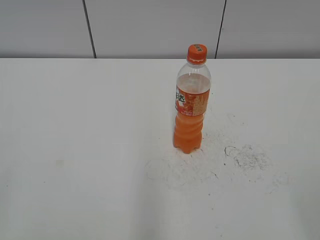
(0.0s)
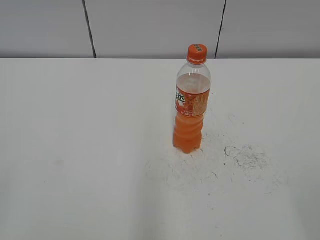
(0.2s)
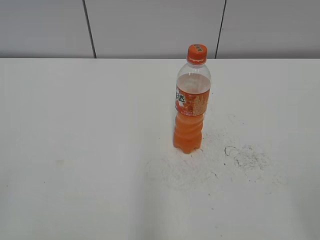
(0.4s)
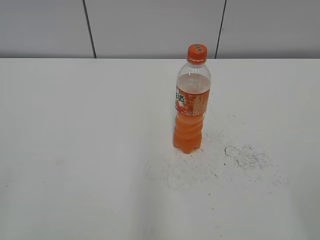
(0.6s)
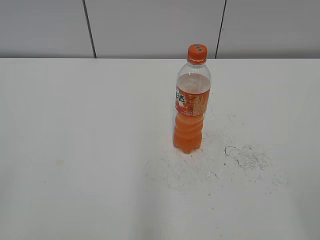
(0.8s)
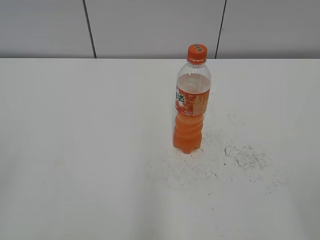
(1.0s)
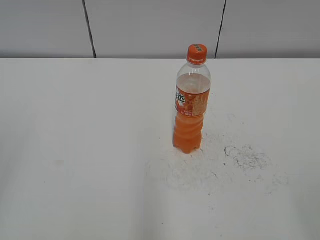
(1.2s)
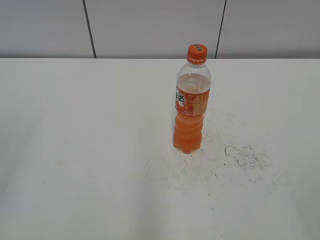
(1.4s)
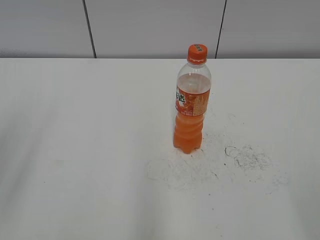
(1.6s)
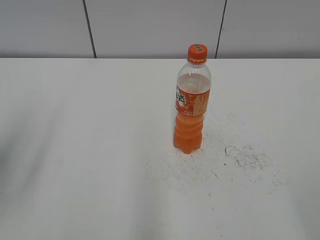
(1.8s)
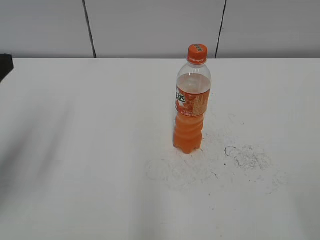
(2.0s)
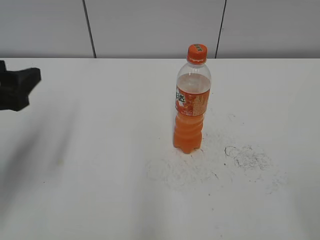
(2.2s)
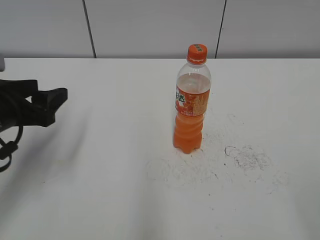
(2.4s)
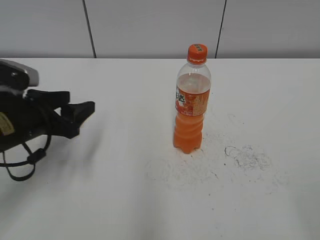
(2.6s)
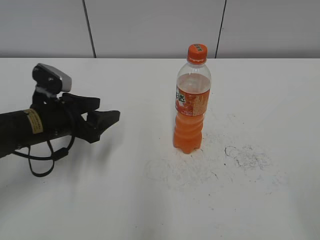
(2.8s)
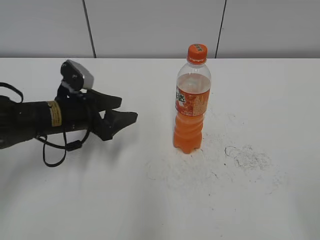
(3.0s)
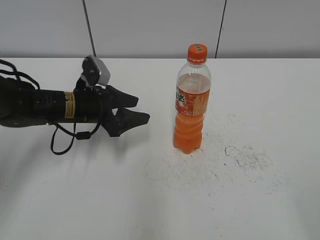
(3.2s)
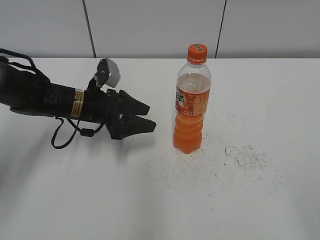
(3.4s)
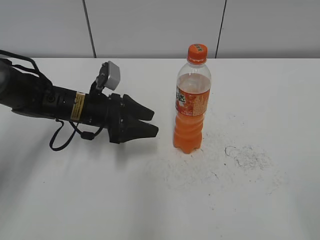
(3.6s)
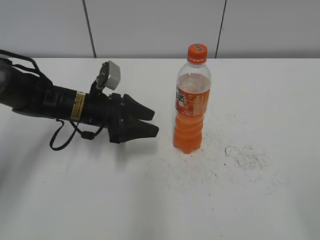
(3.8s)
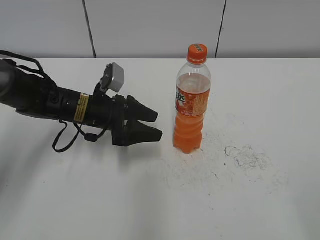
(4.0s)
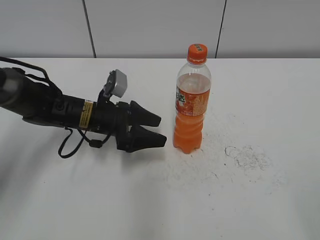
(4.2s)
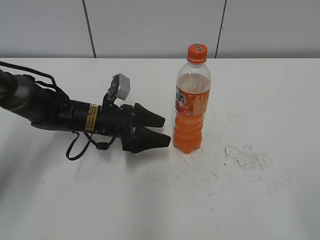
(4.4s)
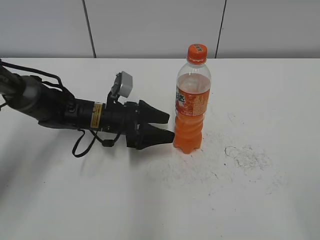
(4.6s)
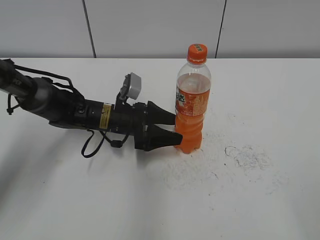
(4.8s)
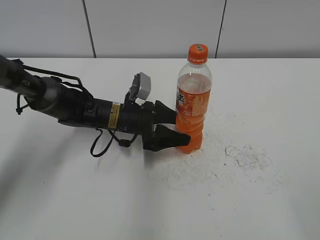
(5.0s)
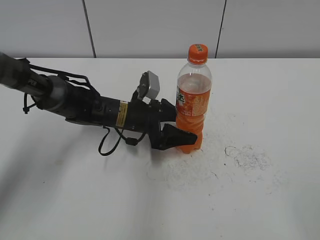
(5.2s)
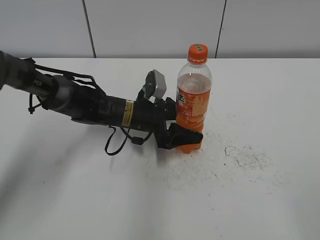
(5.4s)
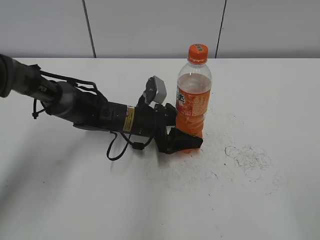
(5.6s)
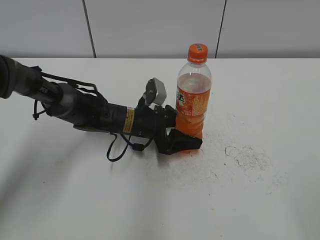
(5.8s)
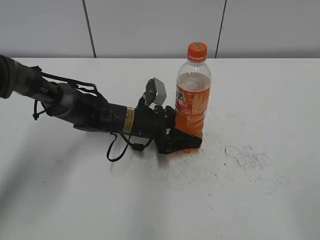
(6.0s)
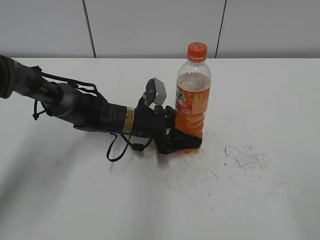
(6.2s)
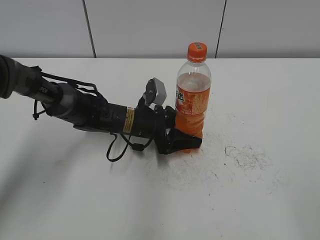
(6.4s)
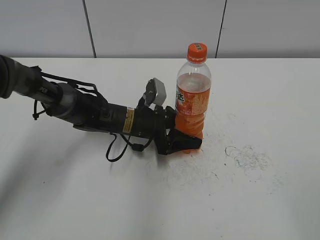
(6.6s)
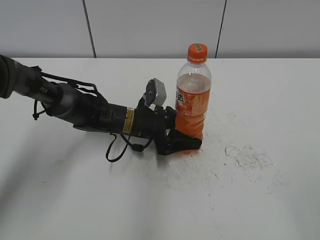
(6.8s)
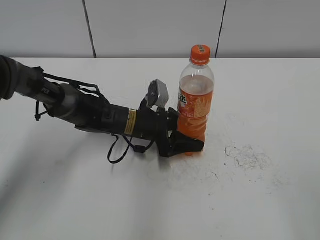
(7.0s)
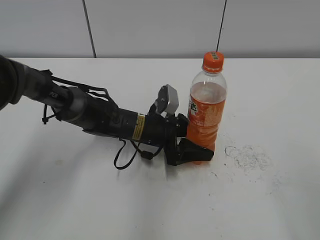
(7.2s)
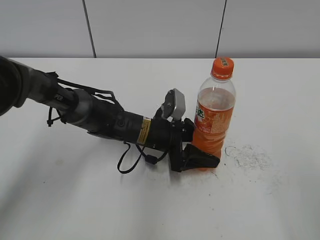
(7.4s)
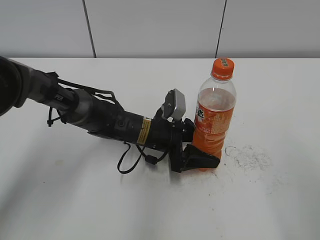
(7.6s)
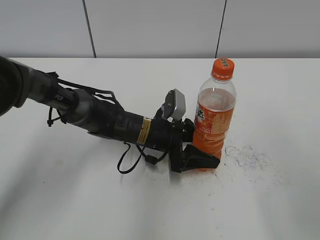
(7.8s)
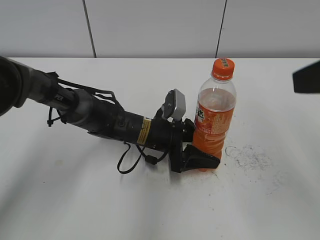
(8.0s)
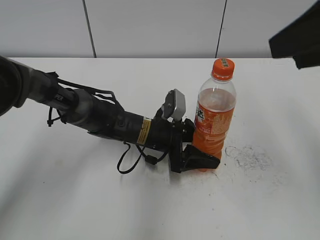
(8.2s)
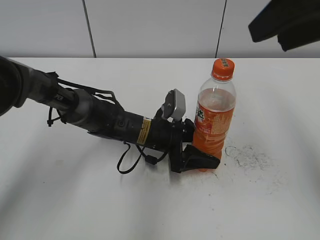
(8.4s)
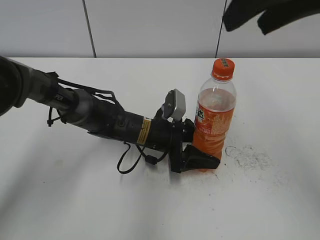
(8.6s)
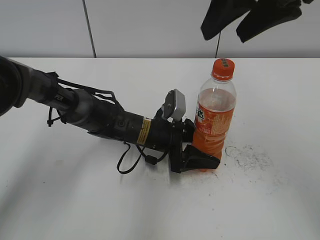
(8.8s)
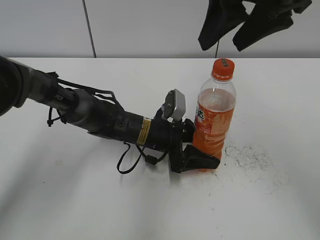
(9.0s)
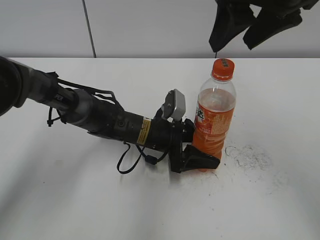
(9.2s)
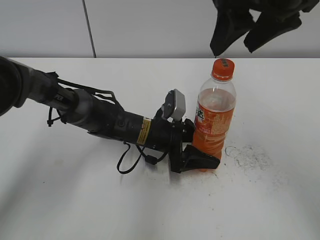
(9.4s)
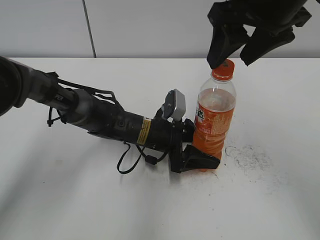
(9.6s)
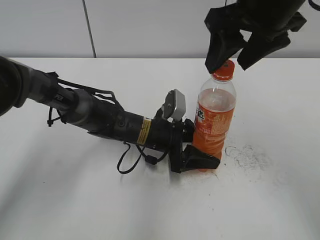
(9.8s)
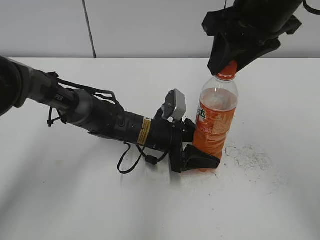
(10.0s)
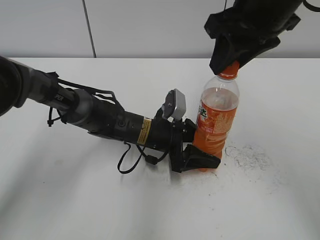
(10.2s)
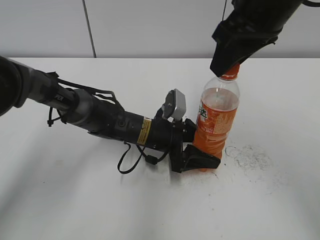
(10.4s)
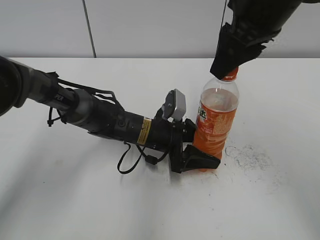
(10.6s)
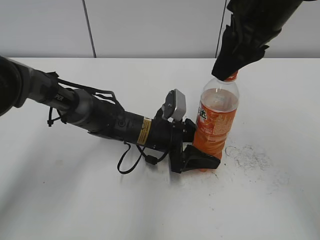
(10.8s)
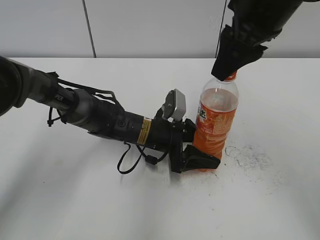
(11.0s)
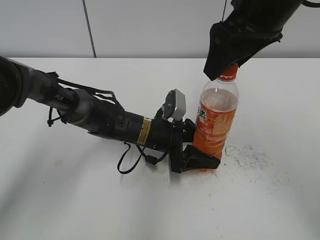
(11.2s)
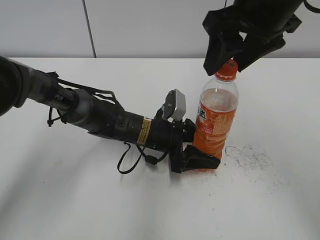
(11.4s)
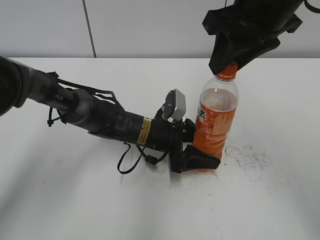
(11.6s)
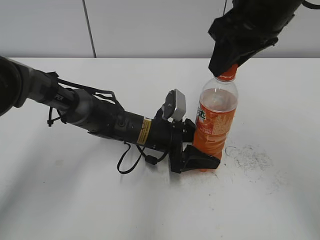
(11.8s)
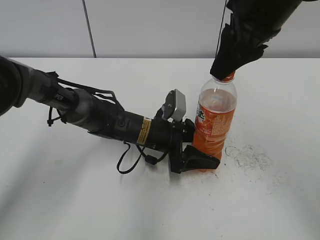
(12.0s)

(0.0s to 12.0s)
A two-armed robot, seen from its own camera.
Step, 0.0s - 6.6s: Grab the Mirinda with the left hand.
Step, 6.8s - 7.4s: Move the Mirinda to the right with the left hand.
1.6s - 3.0s: The left gripper goes about 30 cm downward, forward and to the right.
3.0s - 4.4s: The left gripper heads to the right, covering approximately 5 cm, and opens.
4.4s - 6.0s: The left gripper is displaced to the right by approximately 5 cm, and closes its fingers.
6.0s - 7.6s: The right gripper heads forward, covering about 5 cm.
7.6s - 9.0s: The right gripper heads forward and to the left, covering about 25 cm.
9.0s - 10.4s: The right gripper closes.
10.4s - 12.0s: The right gripper opens and closes again.

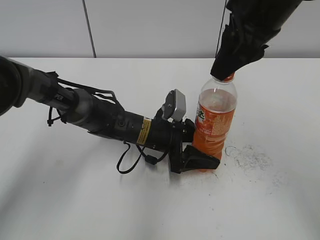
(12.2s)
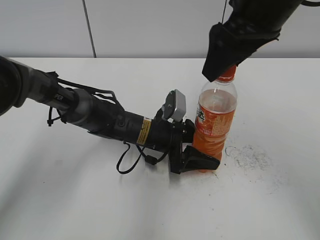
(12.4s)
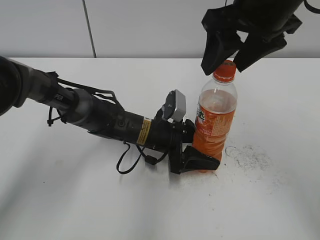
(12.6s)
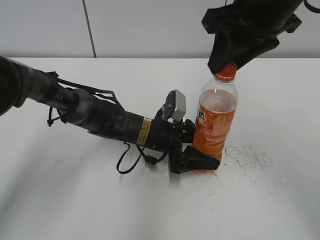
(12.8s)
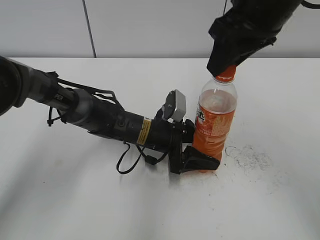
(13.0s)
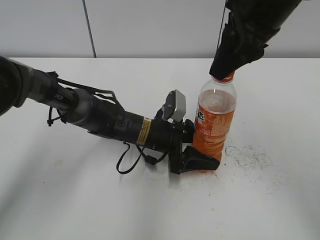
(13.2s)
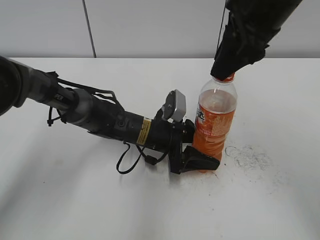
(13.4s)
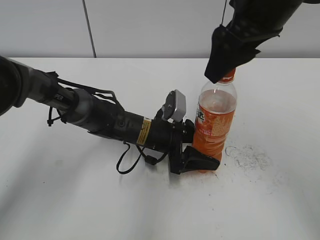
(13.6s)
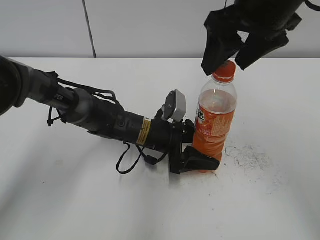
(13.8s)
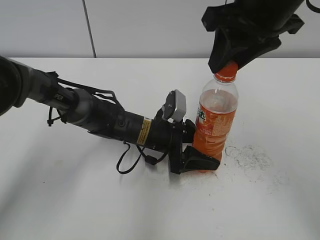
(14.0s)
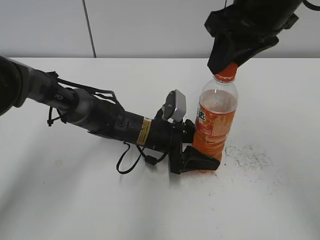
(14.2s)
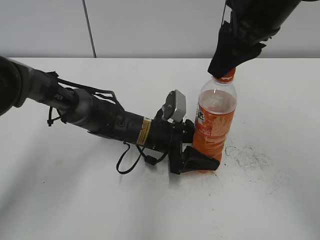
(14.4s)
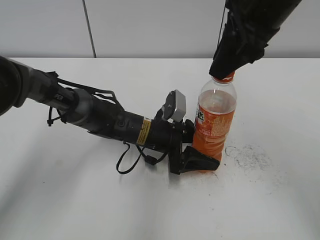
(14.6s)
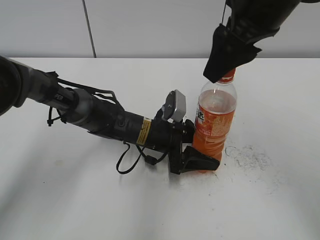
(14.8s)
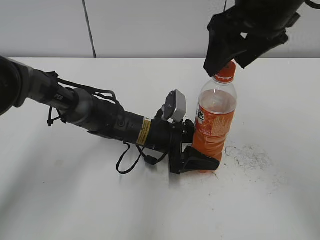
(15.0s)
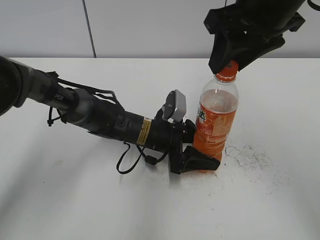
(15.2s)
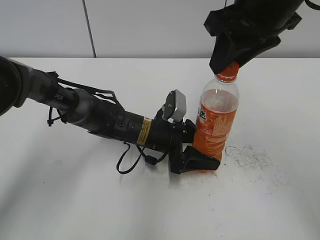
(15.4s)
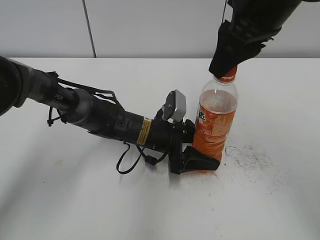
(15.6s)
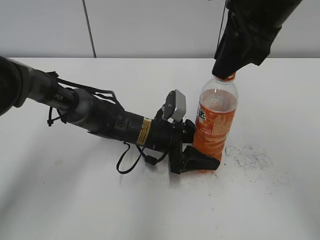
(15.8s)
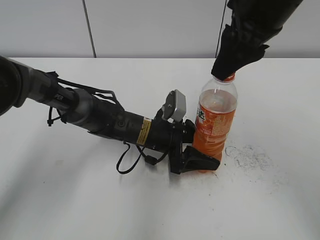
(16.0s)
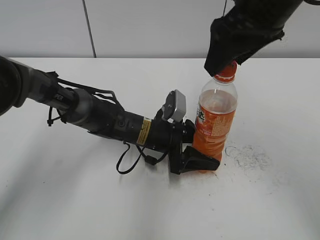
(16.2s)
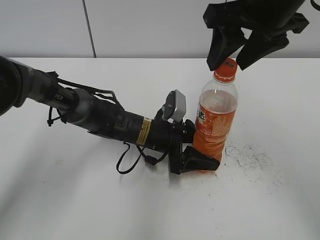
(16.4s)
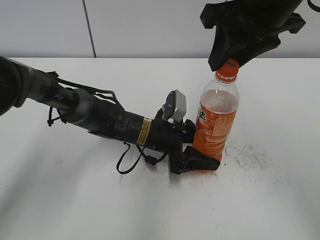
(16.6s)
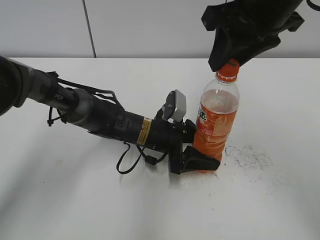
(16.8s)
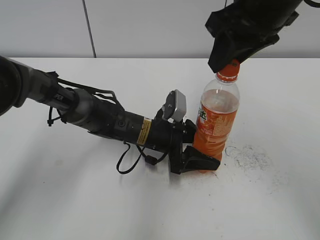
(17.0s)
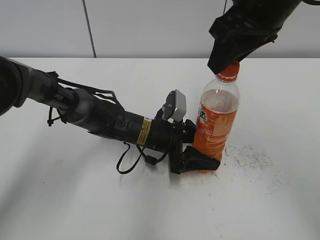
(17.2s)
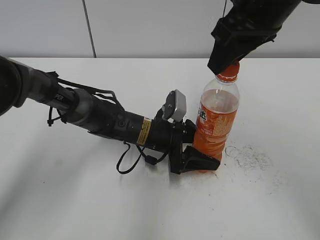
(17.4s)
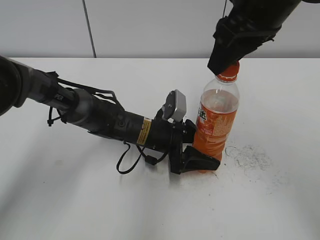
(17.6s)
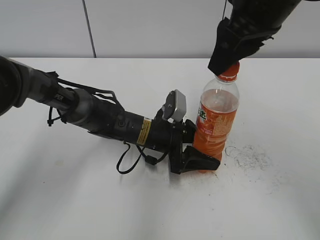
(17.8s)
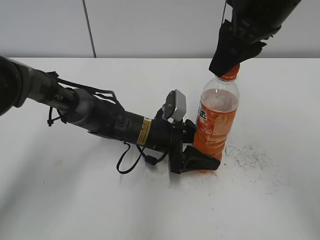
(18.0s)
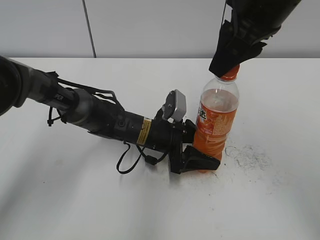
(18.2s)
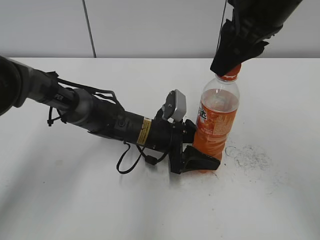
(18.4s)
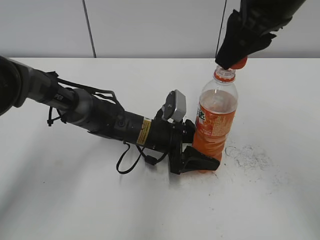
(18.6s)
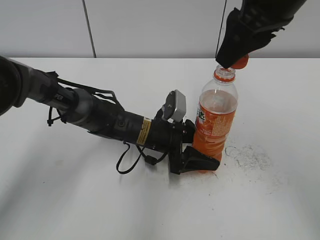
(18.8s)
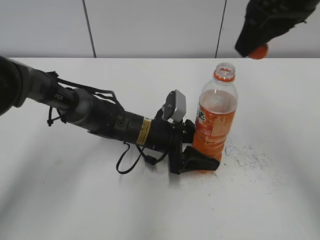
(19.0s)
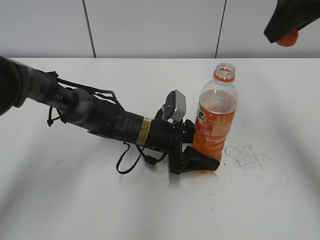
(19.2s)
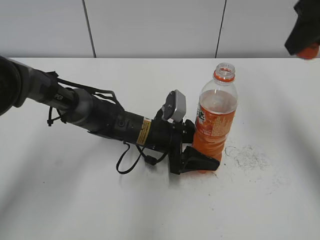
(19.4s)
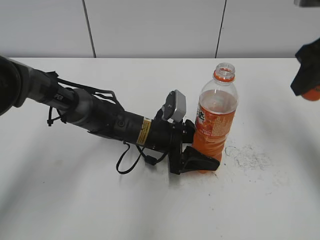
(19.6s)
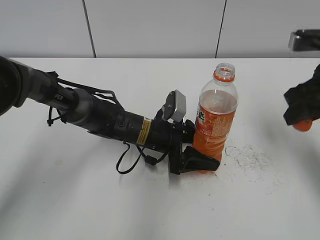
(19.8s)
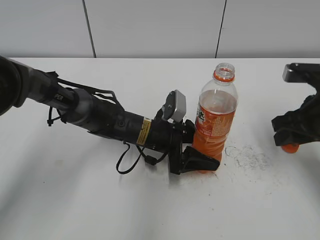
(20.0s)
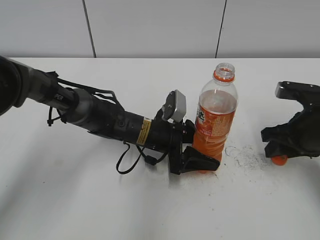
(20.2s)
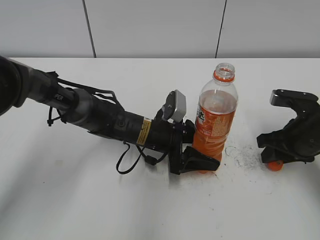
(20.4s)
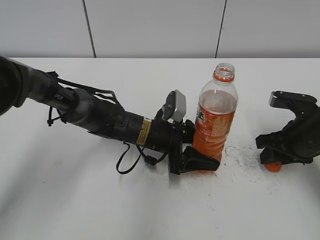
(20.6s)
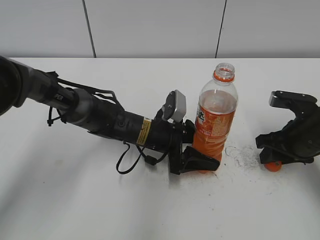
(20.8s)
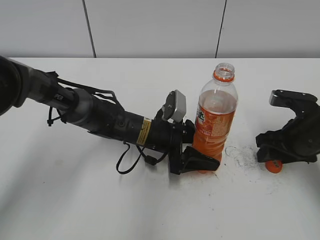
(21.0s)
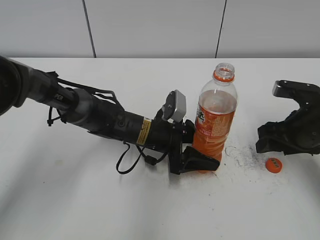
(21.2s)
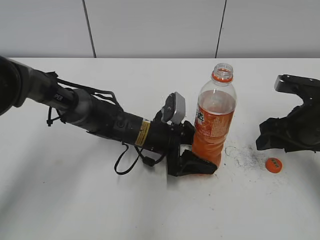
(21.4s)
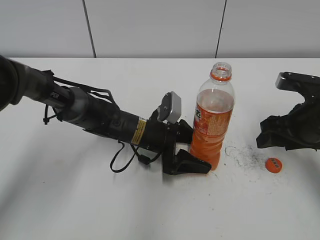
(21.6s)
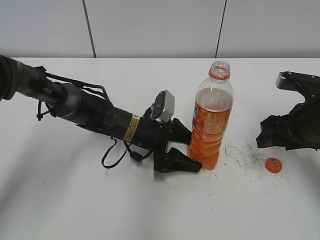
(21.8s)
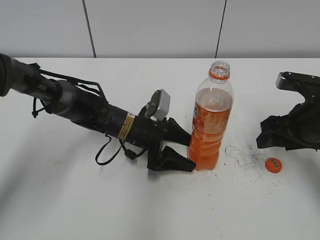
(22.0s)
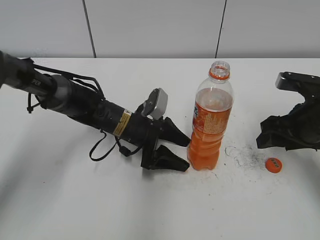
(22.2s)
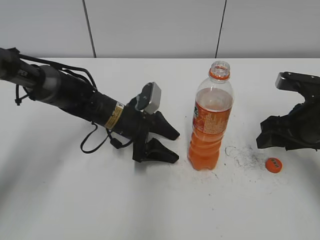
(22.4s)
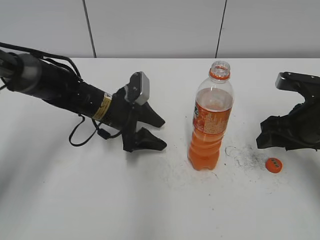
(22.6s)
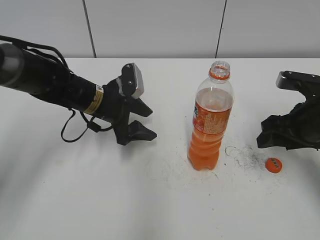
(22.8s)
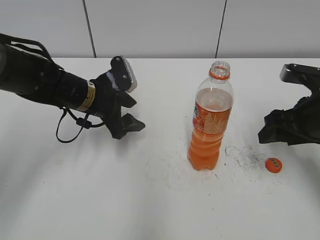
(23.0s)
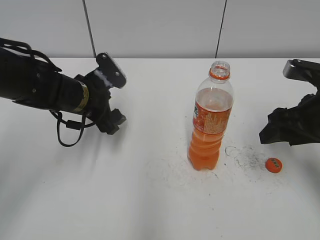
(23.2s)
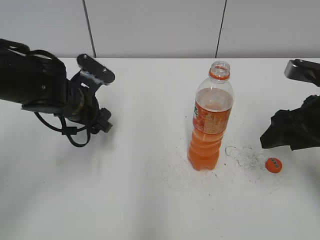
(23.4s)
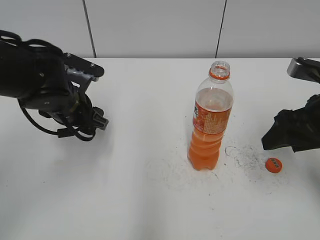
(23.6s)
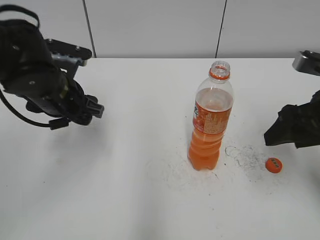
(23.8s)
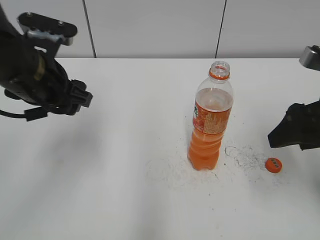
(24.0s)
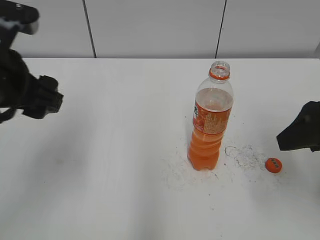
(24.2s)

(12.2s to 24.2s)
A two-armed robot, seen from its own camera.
Step, 19.0s - 21.0s: Place the bottle cap on the table with the right hand.
Step, 21.2s - 22.0s: Place the Mirinda with the left hand.
12.2s - 13.8s: The right gripper opens up.
13.8s - 15.2s: The right gripper closes.
15.2s - 16.6s: The right gripper closes up.
18.2s - 19.8s: The right gripper heads to the right and downward, covering approximately 15 cm.
19.8s - 21.2s: The right gripper travels downward by approximately 10 cm, and opens.
21.2s - 22.6s: The left gripper is displaced to the left by some 10 cm, and opens, then closes again.
22.6s - 24.2s: The right gripper heads upward and backward, covering approximately 15 cm. The left gripper moves upward, backward and to the left, about 25 cm.
